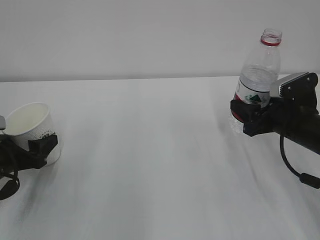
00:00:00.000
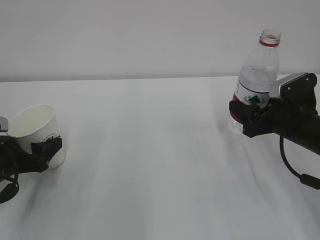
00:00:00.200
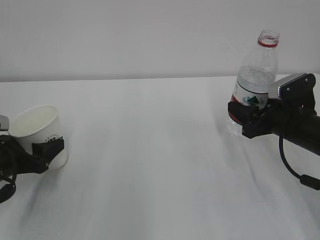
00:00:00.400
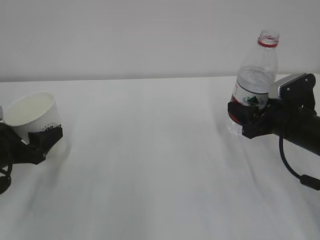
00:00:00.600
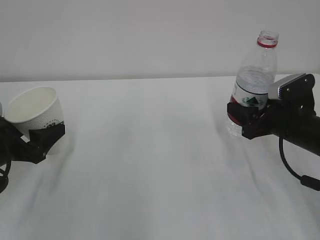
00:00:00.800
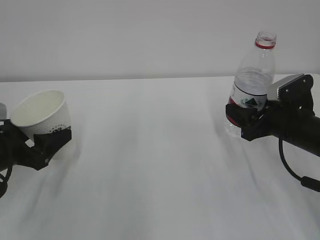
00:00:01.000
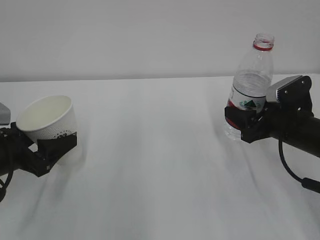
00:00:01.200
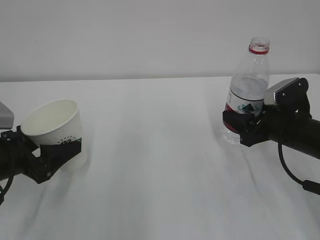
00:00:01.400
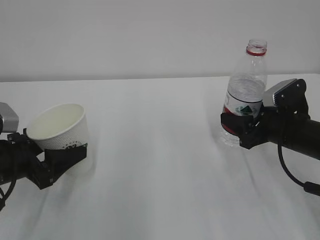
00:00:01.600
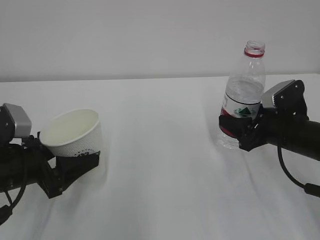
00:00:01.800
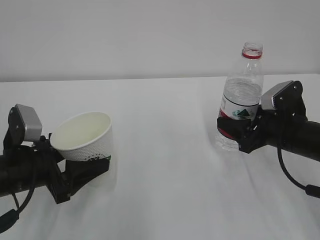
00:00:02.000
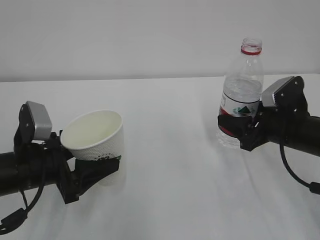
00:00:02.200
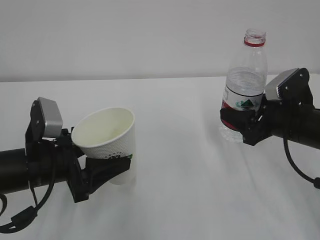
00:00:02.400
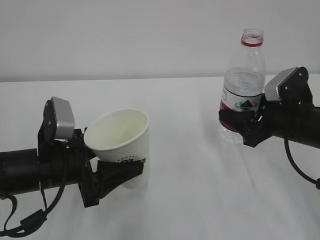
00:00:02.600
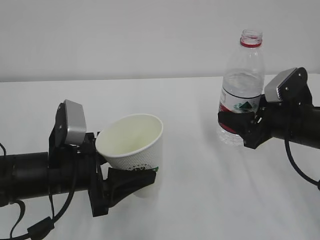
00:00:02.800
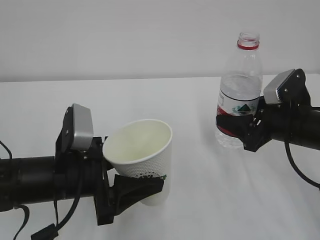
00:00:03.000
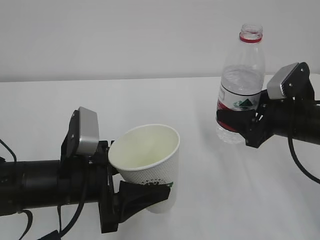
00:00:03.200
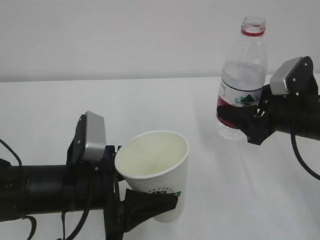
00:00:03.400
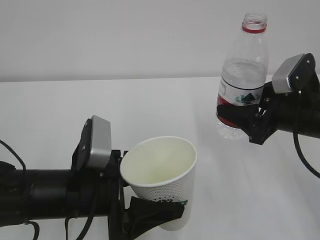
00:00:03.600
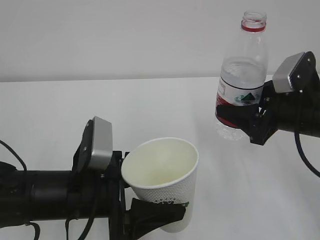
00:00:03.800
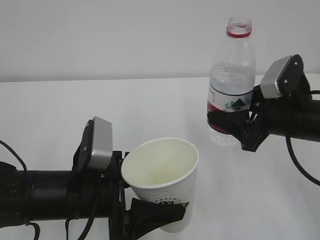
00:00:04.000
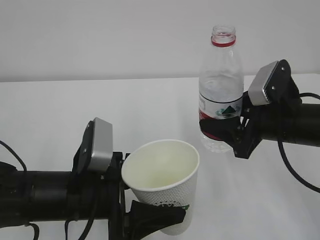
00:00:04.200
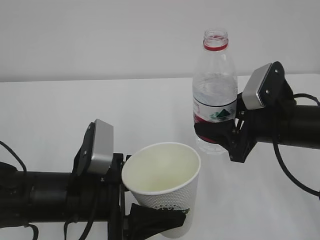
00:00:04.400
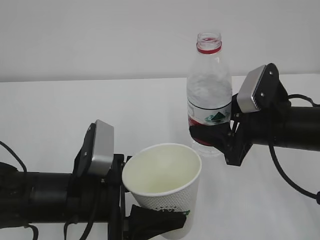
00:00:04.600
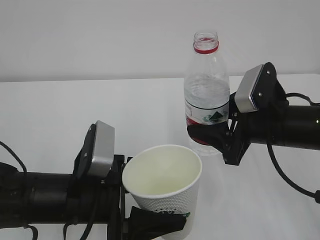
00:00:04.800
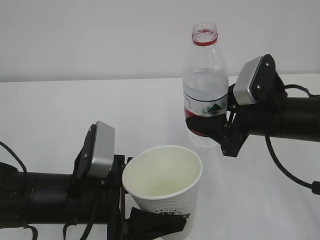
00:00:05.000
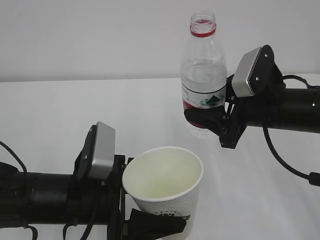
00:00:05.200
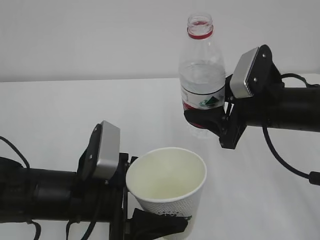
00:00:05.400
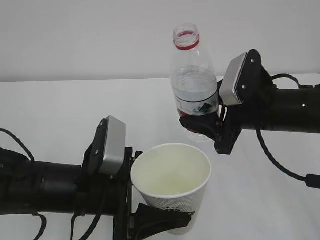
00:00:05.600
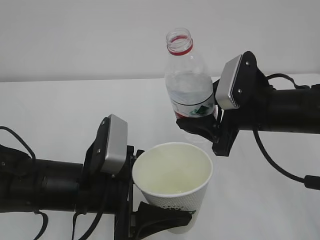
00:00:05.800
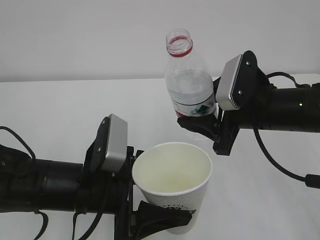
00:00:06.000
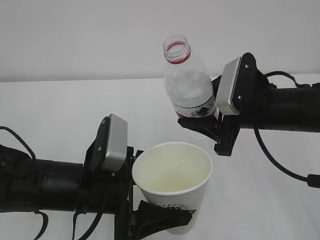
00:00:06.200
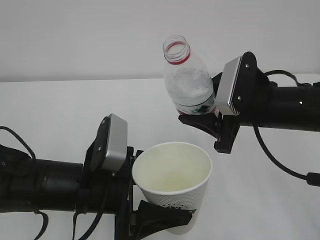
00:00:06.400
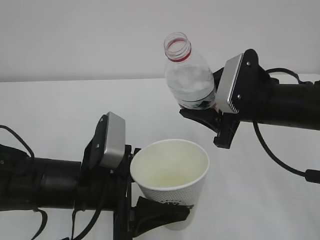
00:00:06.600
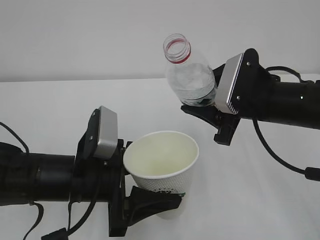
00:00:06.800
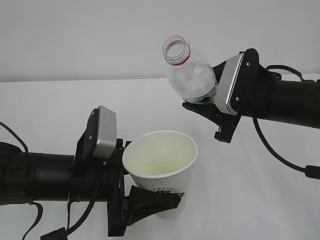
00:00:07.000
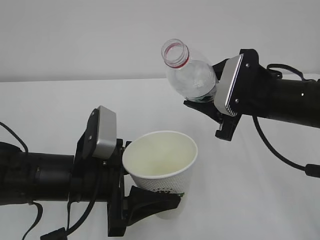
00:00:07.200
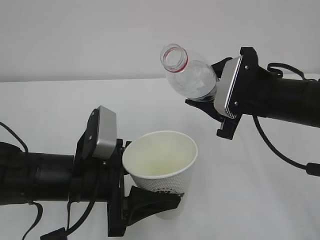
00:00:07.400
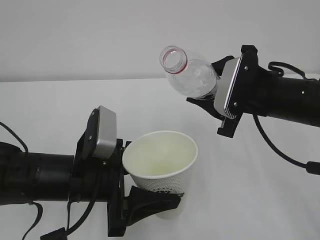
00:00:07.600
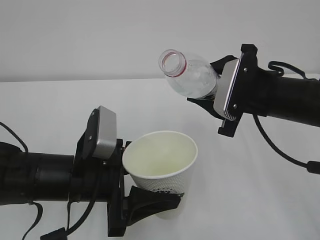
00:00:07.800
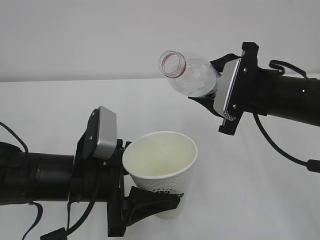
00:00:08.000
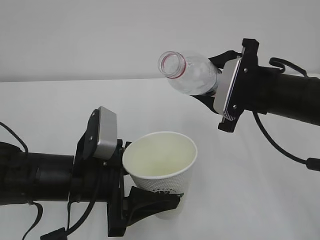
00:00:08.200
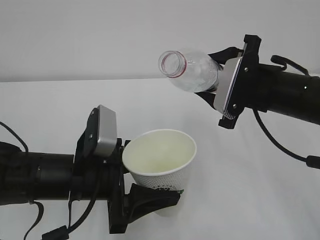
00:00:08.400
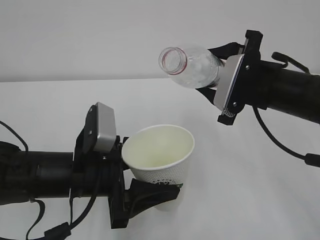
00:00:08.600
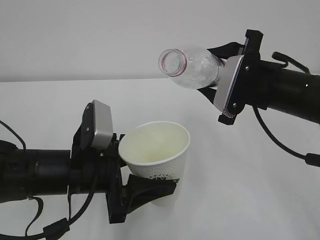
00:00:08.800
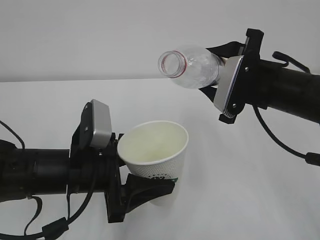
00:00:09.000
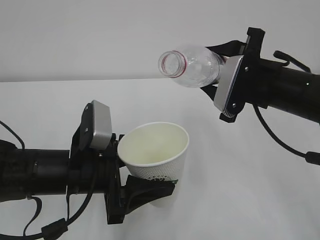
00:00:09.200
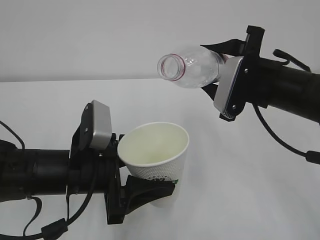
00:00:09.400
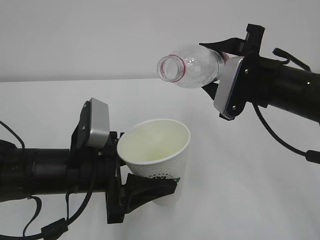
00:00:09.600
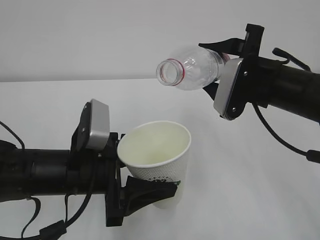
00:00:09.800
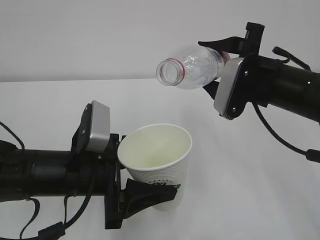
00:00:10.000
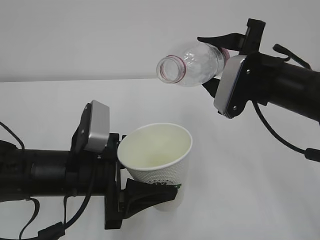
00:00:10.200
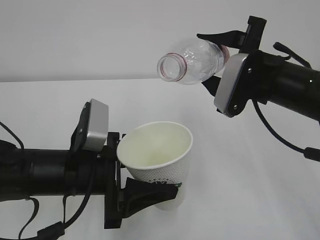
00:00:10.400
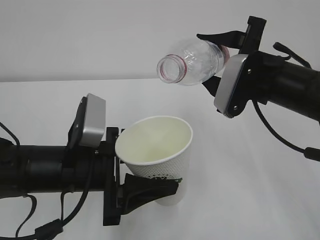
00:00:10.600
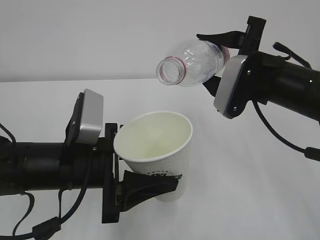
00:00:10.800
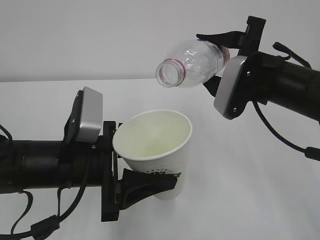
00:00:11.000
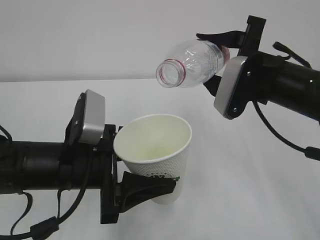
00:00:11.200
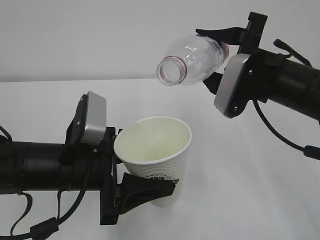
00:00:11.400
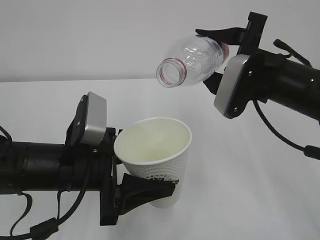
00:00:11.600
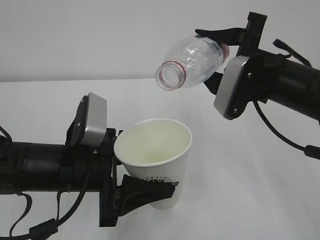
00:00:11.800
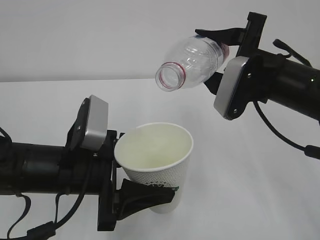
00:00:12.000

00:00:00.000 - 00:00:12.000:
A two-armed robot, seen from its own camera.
00:00:00.000 - 00:00:01.600: The left gripper shifts by roughly 5 cm.
00:00:01.600 - 00:00:03.000: The left gripper is displaced to the right by approximately 10 cm.
00:00:03.000 - 00:00:04.400: The right gripper shifts by roughly 5 cm.
00:00:07.600 - 00:00:09.000: The grippers make only small movements.
00:00:09.000 - 00:00:12.000: The grippers move only a little.

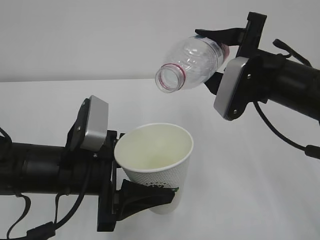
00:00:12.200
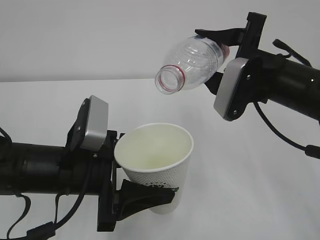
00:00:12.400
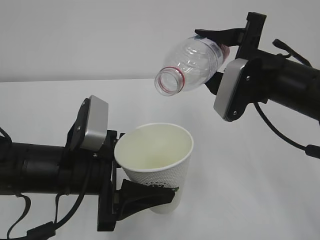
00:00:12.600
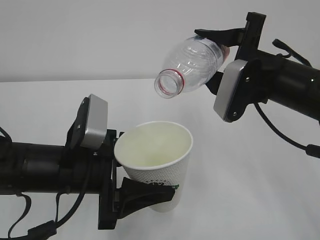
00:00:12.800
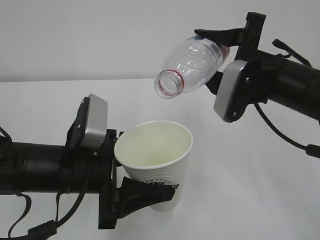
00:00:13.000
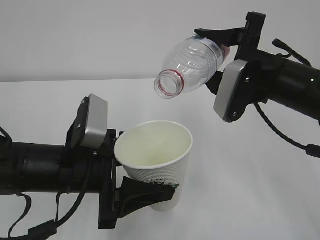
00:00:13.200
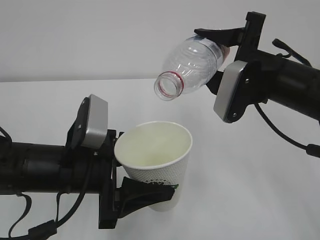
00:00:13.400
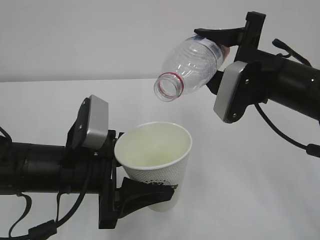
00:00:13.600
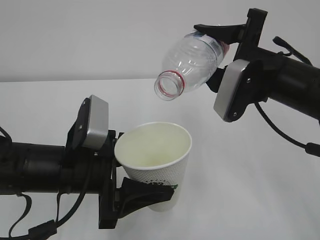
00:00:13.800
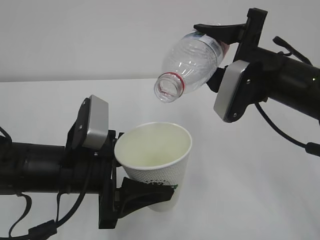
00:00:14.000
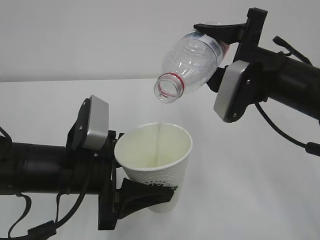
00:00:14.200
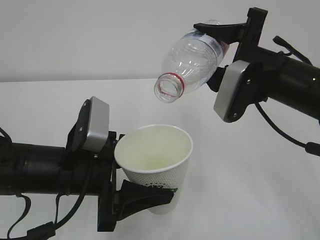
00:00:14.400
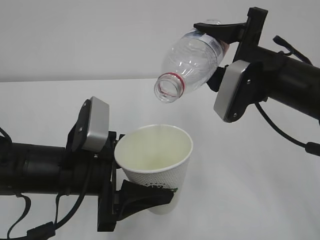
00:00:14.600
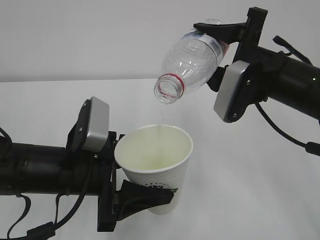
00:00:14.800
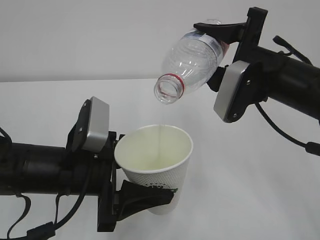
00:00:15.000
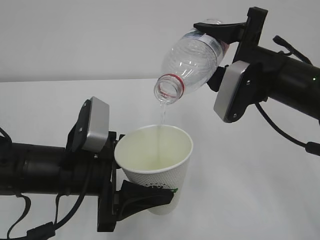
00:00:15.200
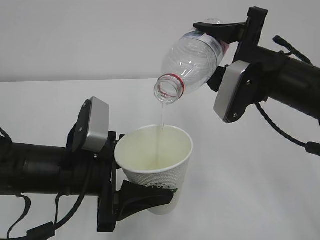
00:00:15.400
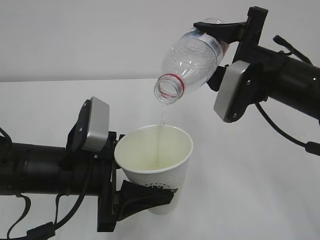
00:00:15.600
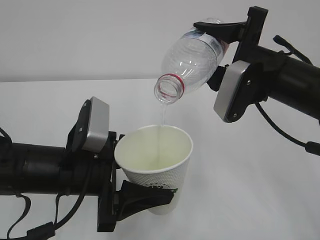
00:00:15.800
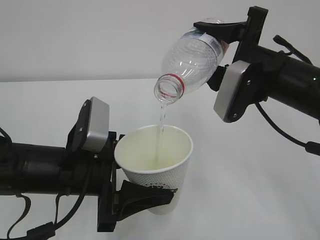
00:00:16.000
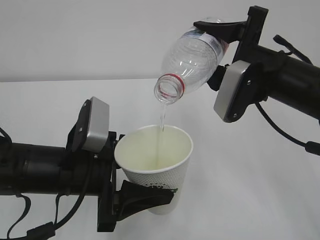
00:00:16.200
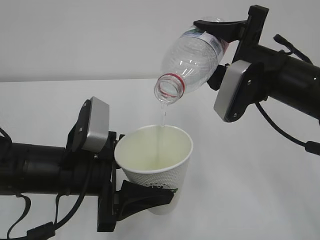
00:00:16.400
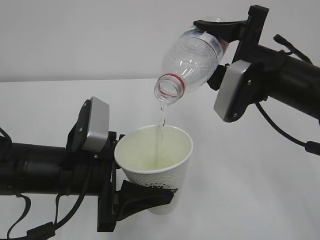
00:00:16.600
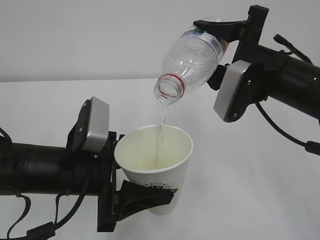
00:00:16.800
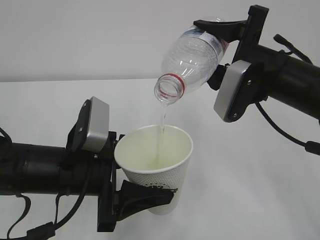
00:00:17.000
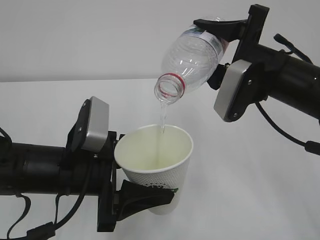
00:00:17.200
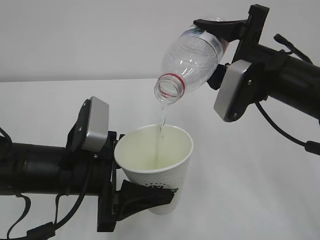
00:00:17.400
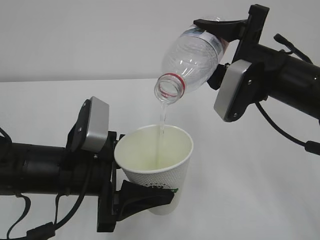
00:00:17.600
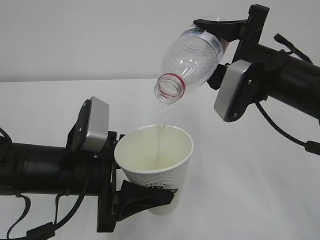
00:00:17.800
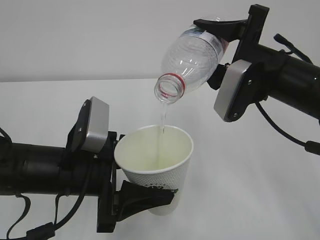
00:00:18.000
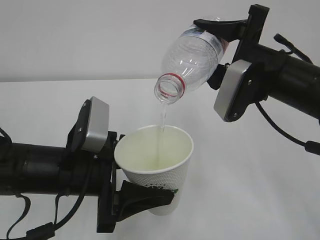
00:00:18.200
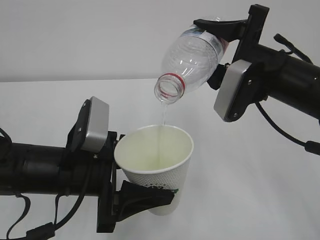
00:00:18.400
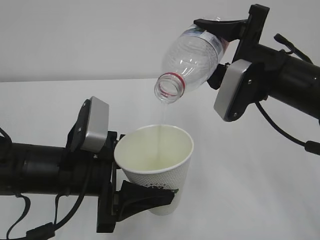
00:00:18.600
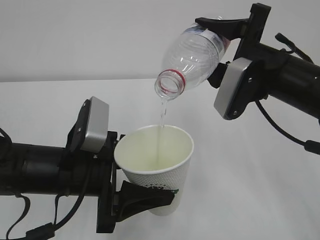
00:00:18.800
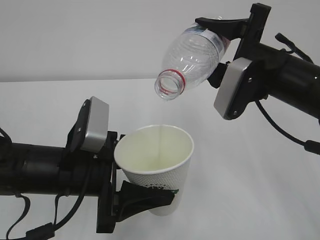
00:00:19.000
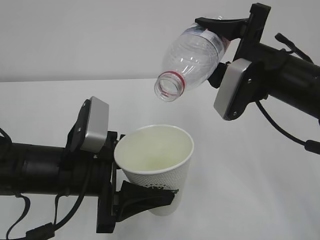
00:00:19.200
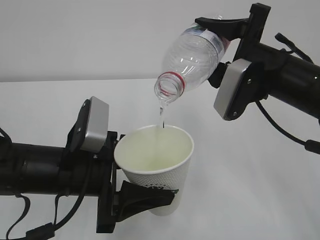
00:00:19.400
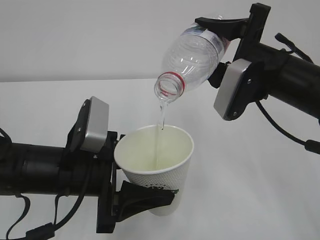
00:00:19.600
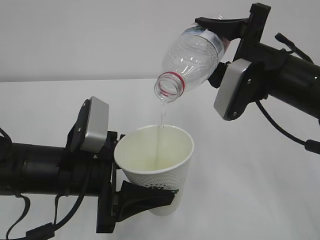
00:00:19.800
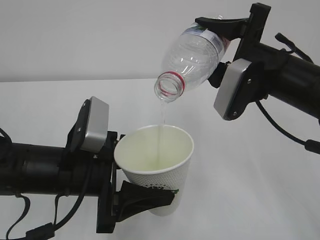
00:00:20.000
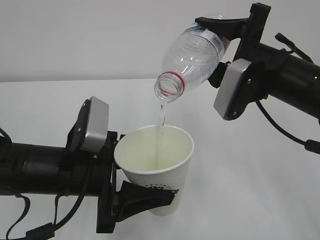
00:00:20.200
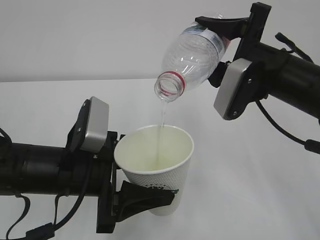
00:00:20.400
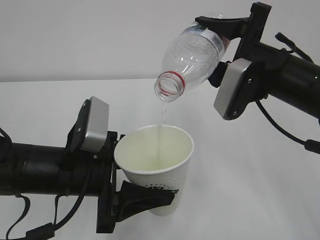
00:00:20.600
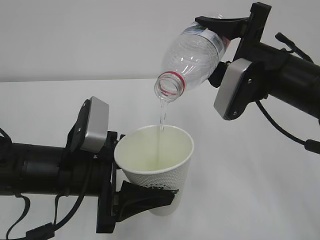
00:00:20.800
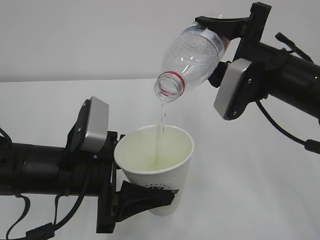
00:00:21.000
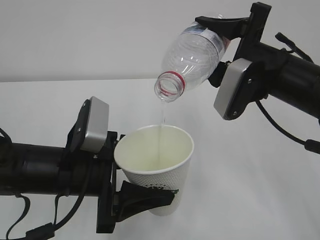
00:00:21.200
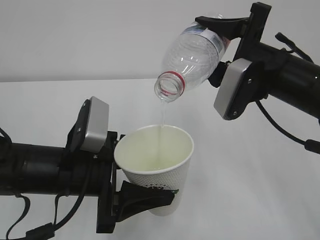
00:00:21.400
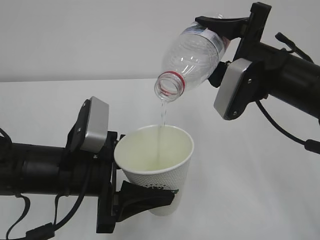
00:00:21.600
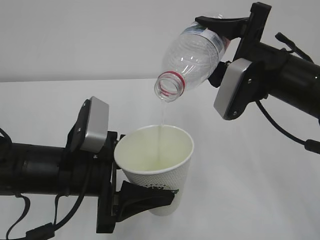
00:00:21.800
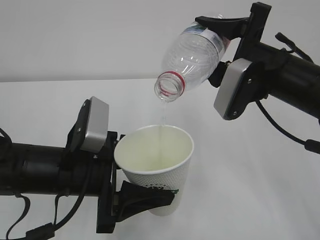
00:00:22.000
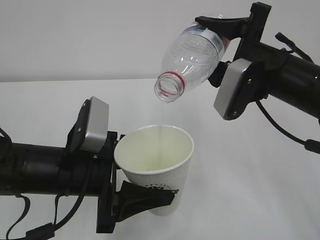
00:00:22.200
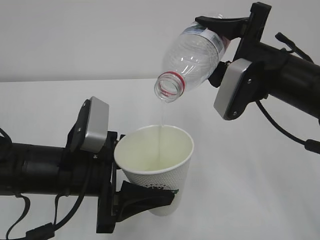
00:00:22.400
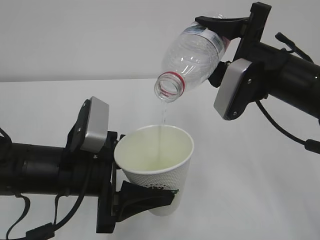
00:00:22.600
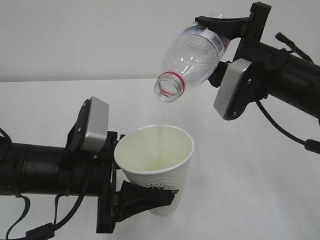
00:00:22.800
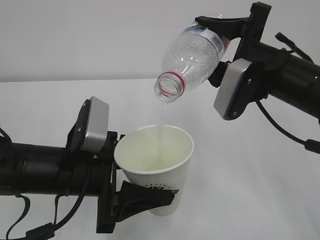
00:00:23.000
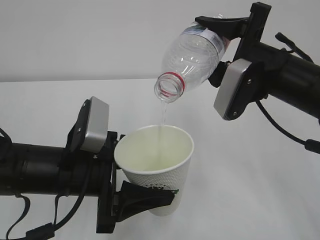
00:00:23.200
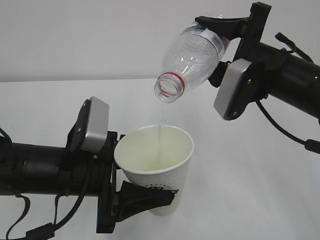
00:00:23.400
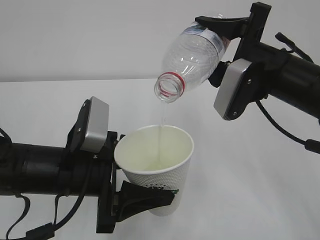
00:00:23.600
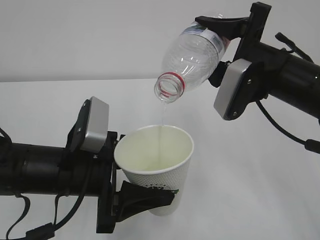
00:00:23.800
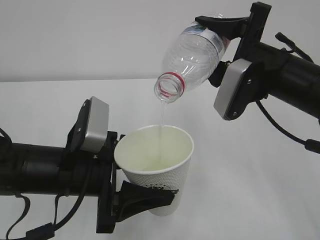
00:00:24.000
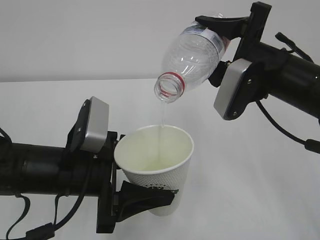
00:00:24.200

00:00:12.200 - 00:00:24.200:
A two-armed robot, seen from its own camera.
00:00:12.200 - 00:00:13.800: There are only small adjustments of the grippers.
00:00:13.800 - 00:00:21.200: Both grippers stay about where they are.
00:00:21.200 - 00:00:24.200: The two grippers keep their place.
